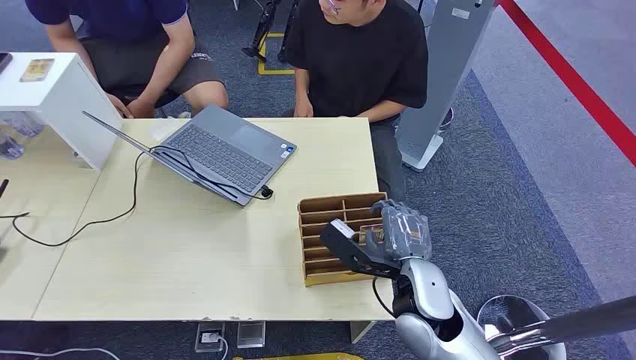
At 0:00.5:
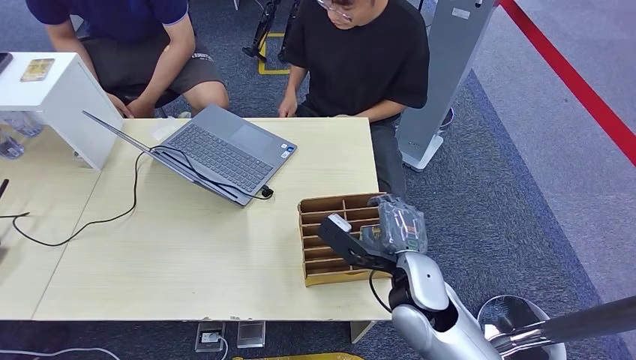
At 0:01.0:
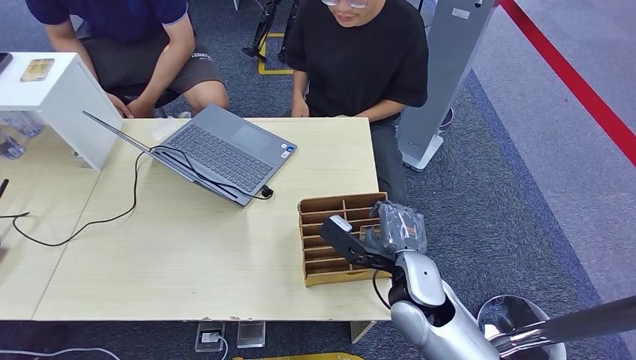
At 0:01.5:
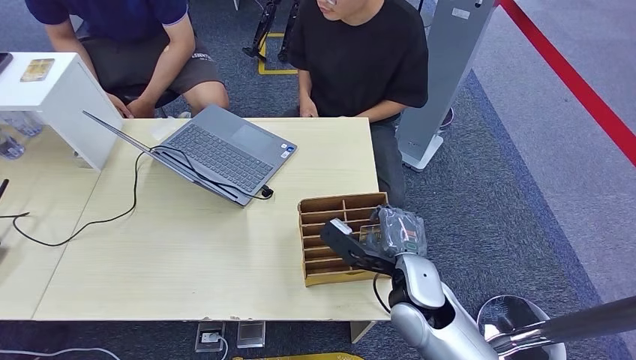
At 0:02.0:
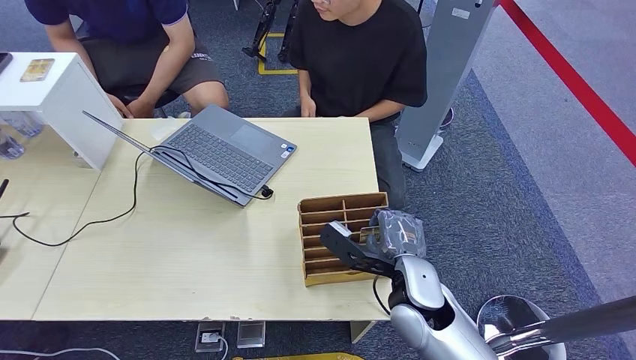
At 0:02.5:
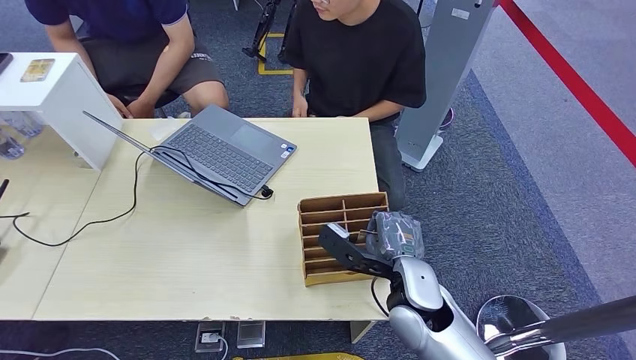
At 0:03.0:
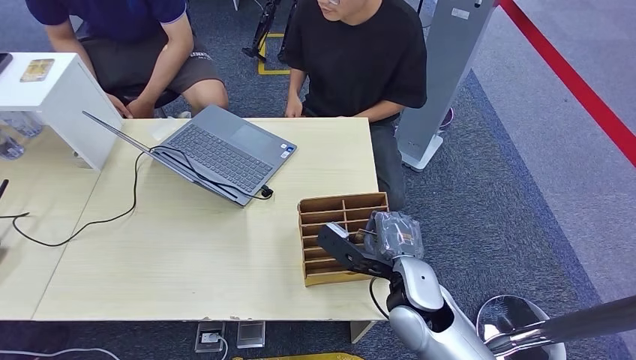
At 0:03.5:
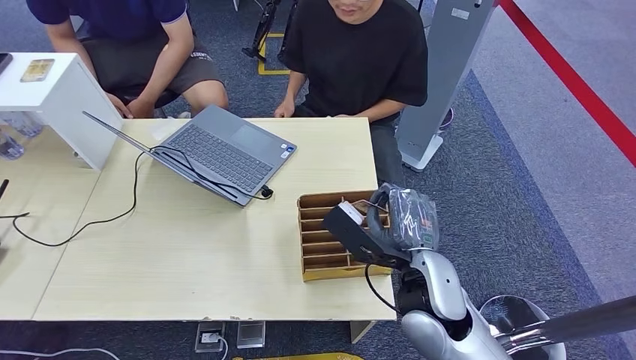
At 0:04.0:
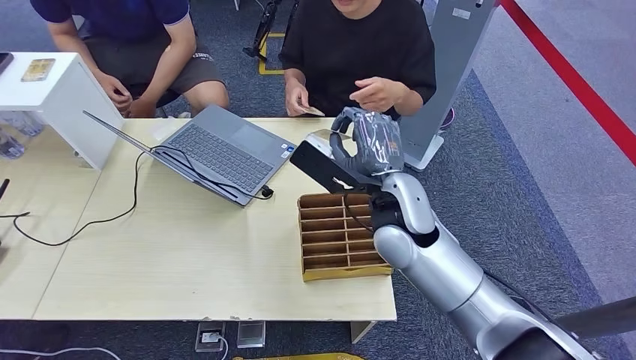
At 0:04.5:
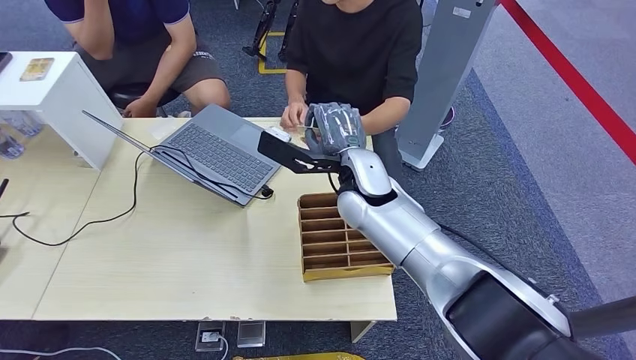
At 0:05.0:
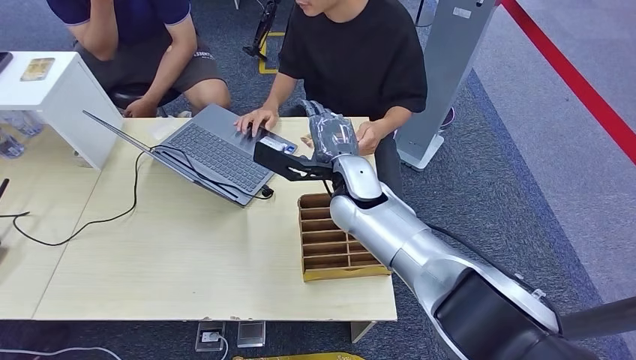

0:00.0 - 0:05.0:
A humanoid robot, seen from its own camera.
Step, 0:00.0 - 0:03.0: Pick up the room card from the card holder.
Step, 0:04.0 - 0:05.0: Hand the room card to the target.
0:02.5 - 0:05.0: The right hand moves forward, to the left and upward, about 20 cm.
